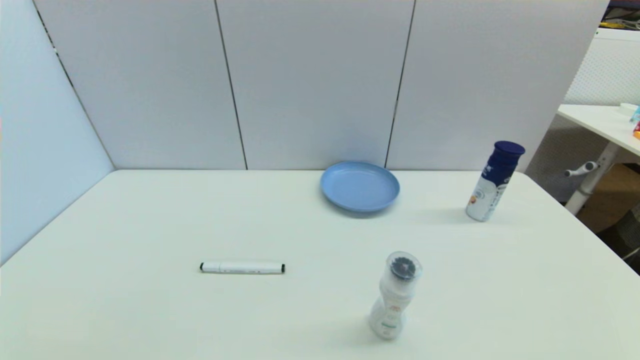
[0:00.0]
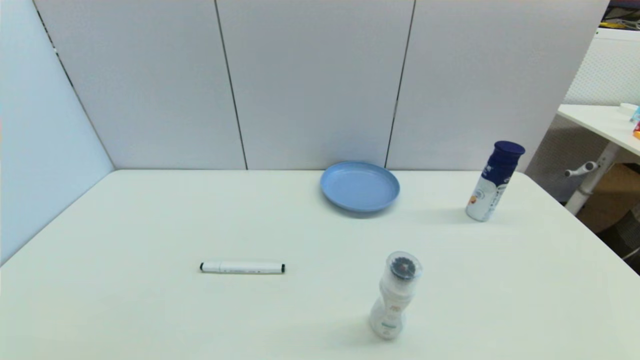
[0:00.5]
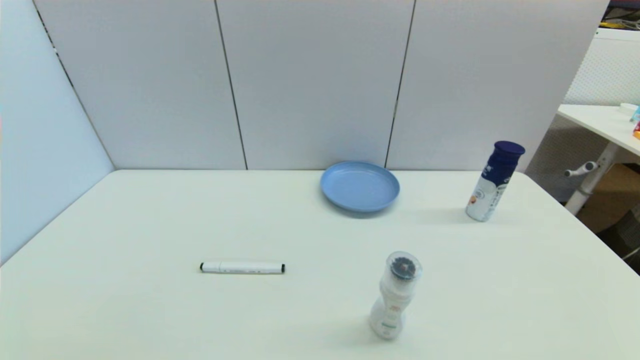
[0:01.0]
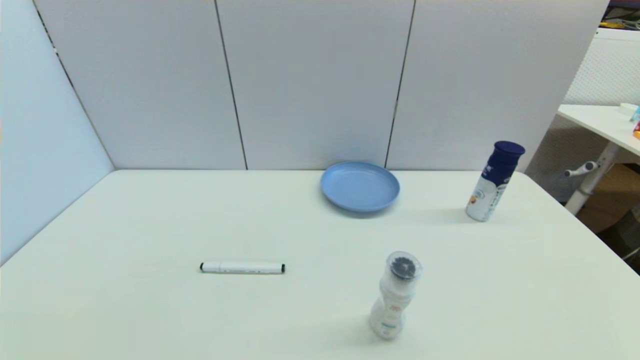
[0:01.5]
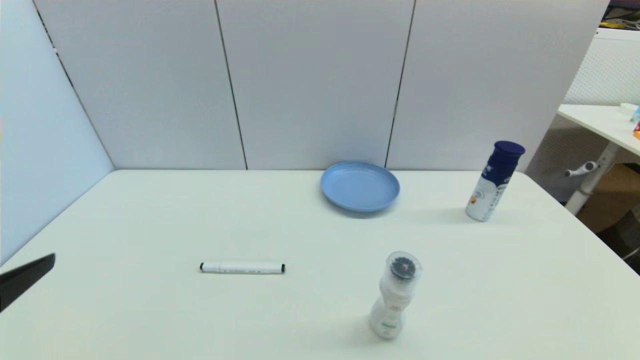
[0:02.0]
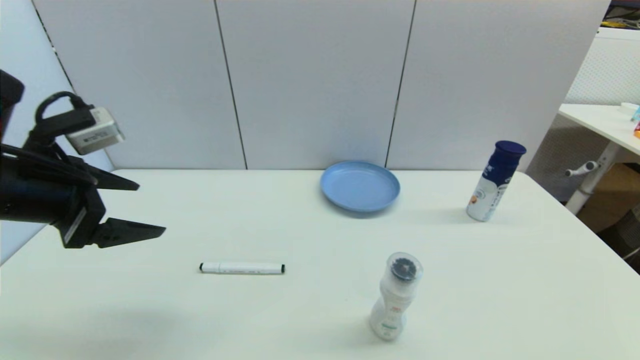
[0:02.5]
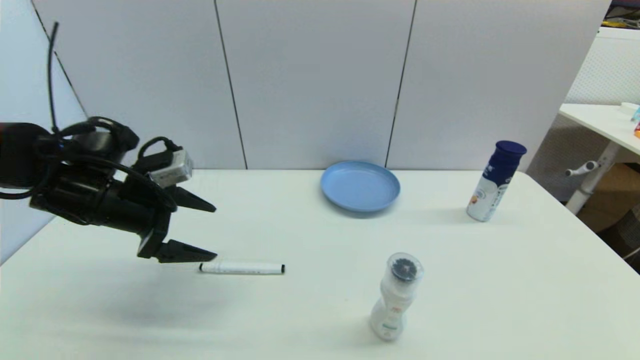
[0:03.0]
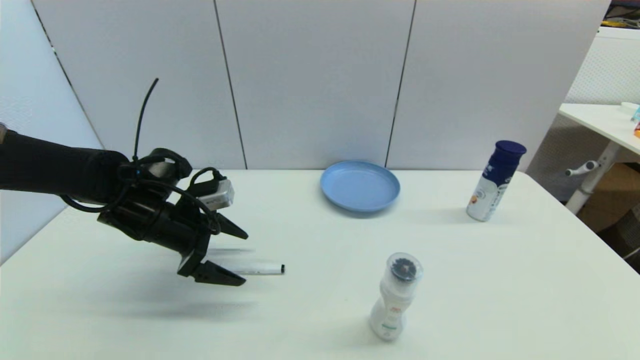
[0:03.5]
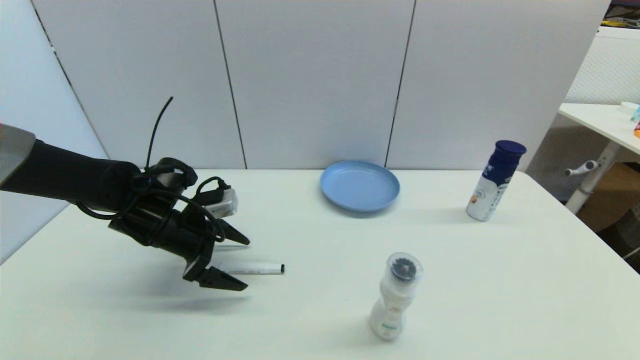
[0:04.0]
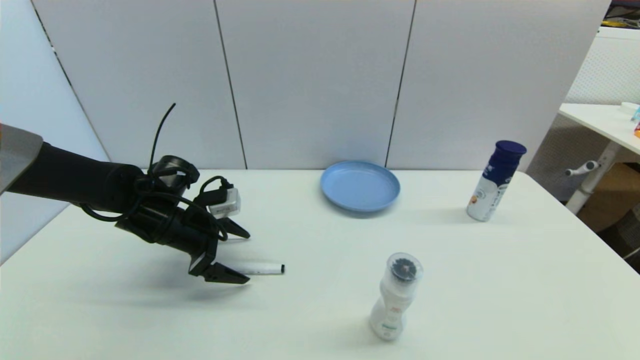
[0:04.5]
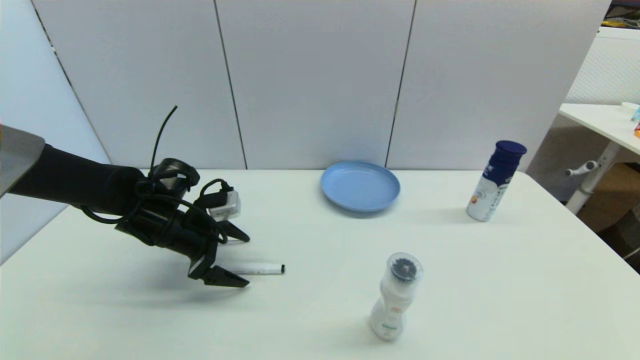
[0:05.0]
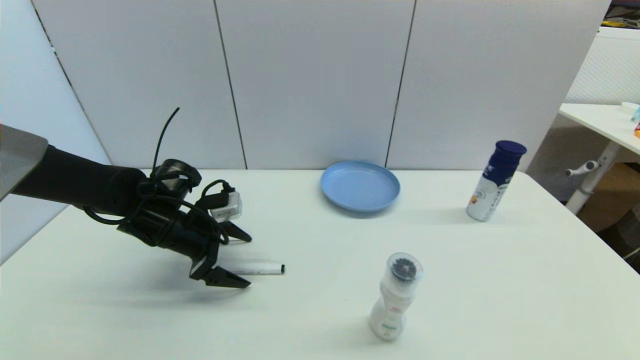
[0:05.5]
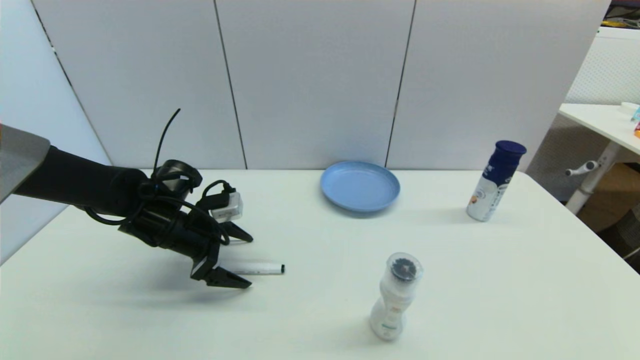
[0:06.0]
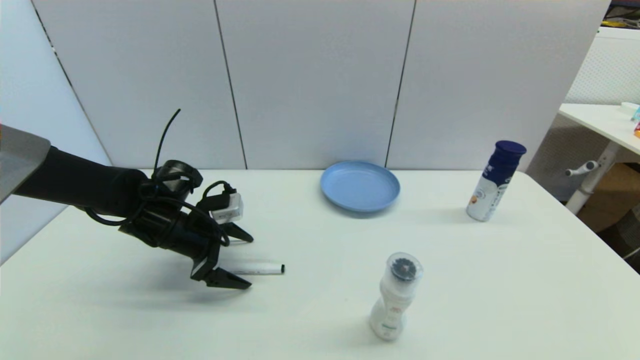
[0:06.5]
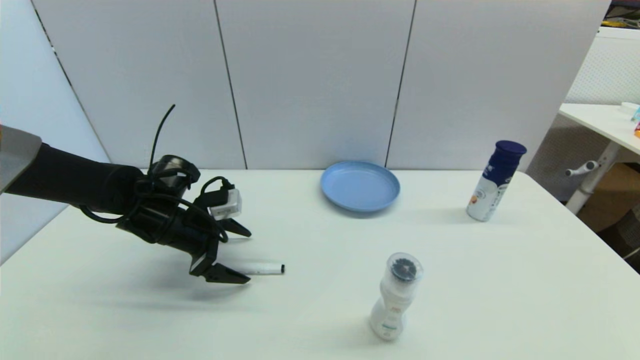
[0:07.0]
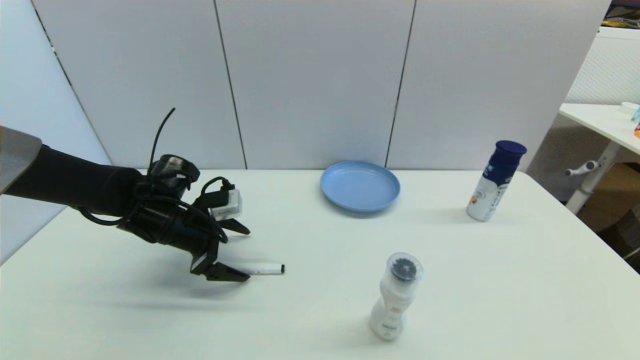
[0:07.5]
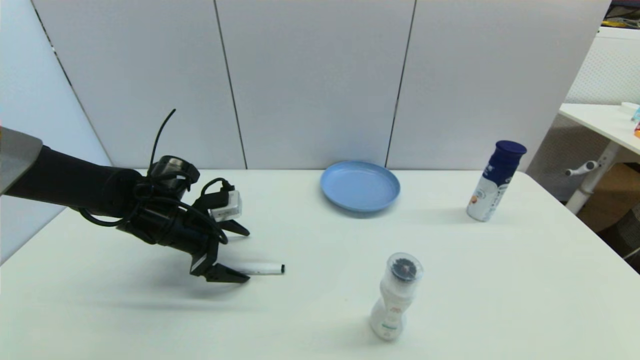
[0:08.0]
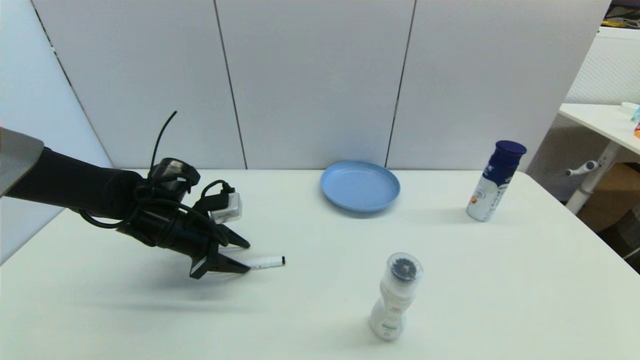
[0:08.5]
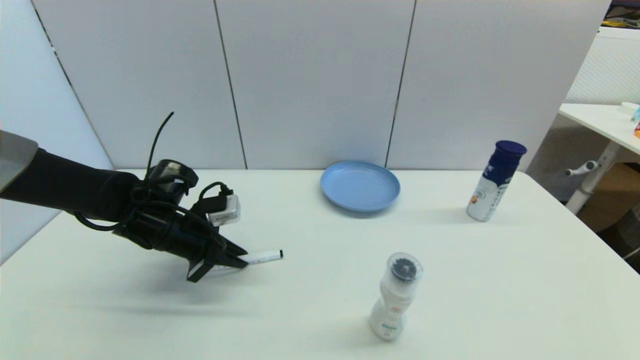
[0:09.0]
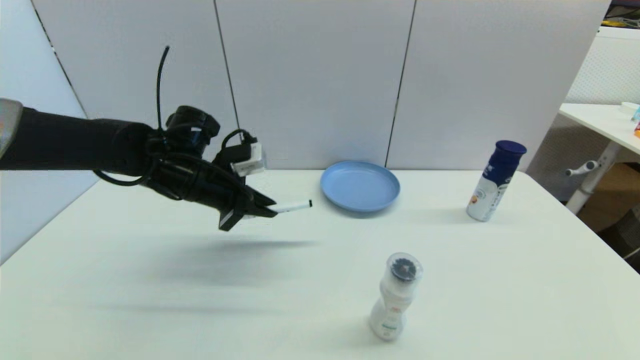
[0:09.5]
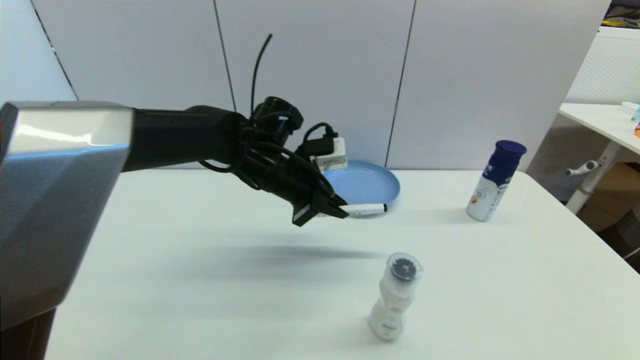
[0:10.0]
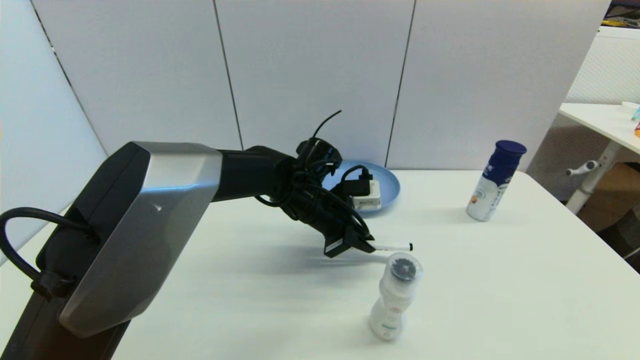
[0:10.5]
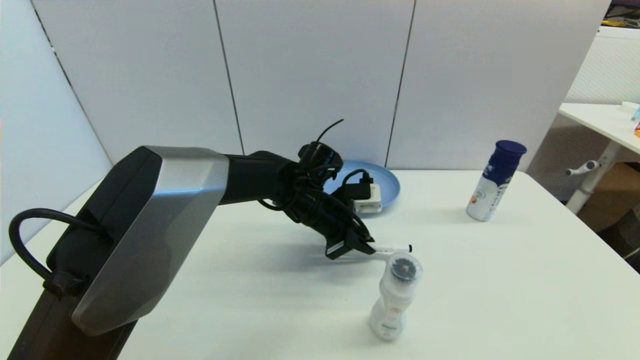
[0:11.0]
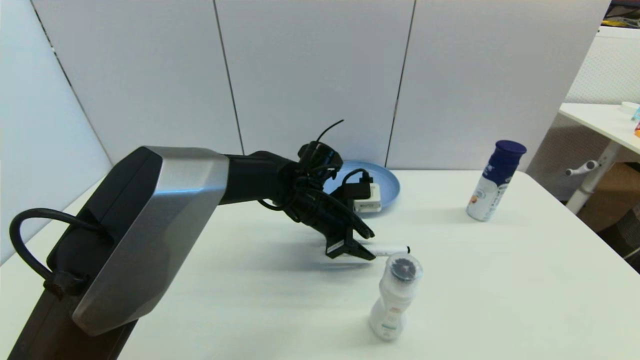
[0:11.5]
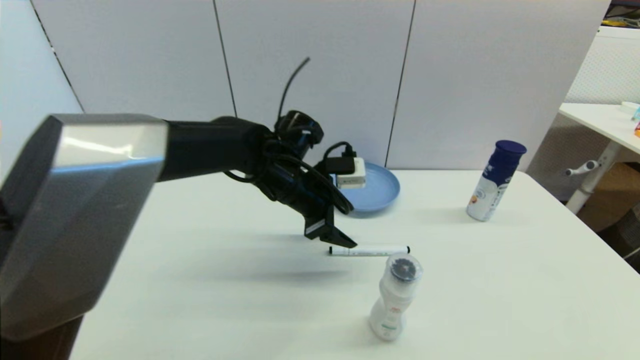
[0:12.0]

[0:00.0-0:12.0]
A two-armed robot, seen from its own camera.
Task of the whole recording: put the black marker in the designated position.
Step, 0:02.0 to 0:08.5: Grasp the Marker pen with left gripper.
Step, 0:09.5 to 0:11.5: Place the Marker pen on the table with left gripper.
0:00.0 to 0:02.0: The left gripper moves upward and forward, about 20 cm.
0:02.0 to 0:04.0: The left gripper moves forward and downward, approximately 30 cm.
0:04.0 to 0:08.0: There are only small adjustments of the grippers.
0:08.0 to 0:10.0: The left gripper moves to the right and upward, about 20 cm, and closes up.
0:10.0 to 0:12.0: The left gripper opens up.

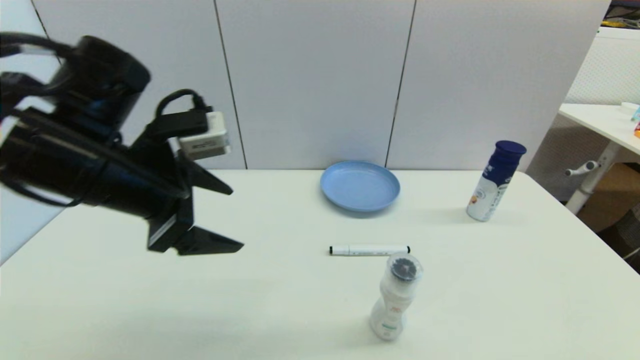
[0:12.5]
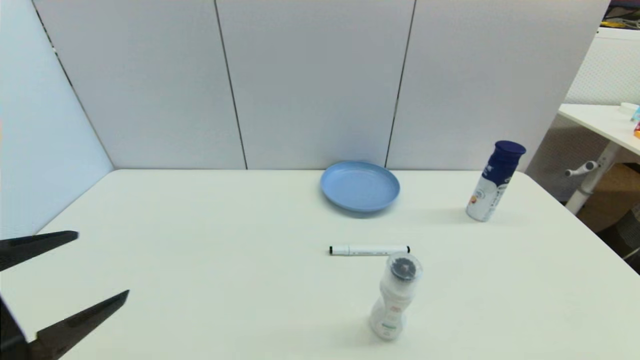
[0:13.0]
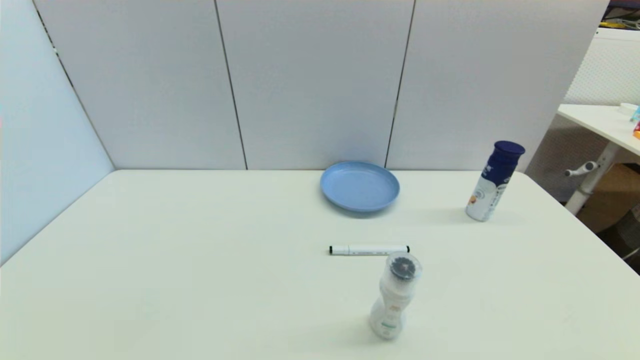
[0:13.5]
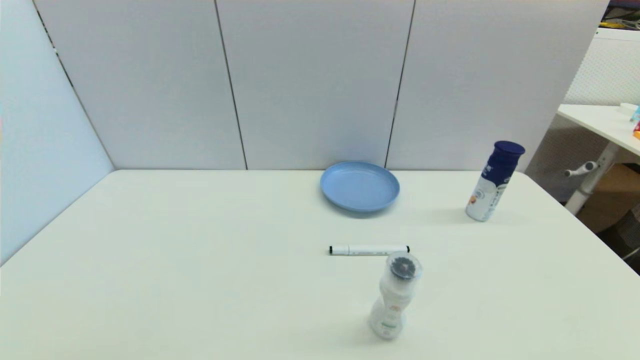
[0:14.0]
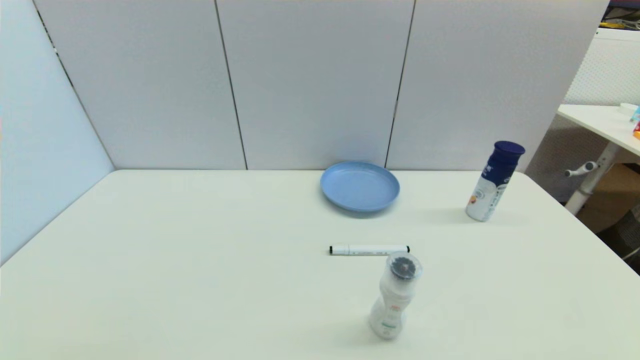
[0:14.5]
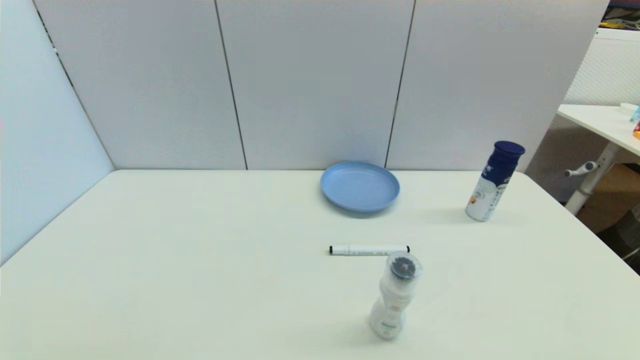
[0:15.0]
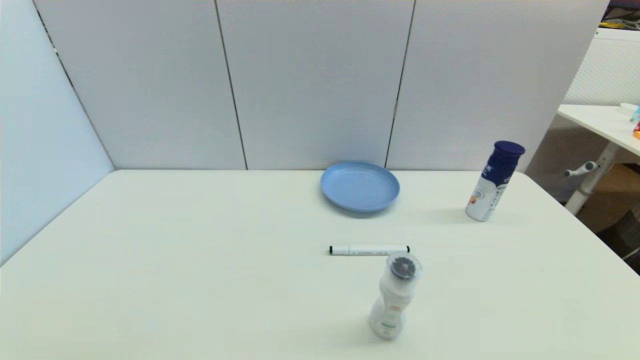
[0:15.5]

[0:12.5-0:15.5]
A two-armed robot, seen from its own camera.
Task of the whole recording: put the black marker in the designated position.
0:12.5 to 0:14.0: The left gripper travels backward, downward and to the left by approximately 30 cm.
